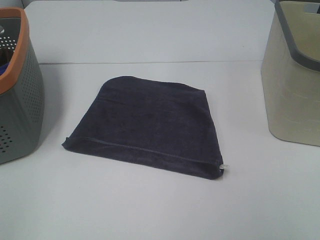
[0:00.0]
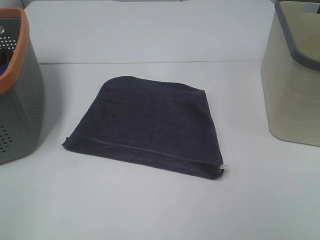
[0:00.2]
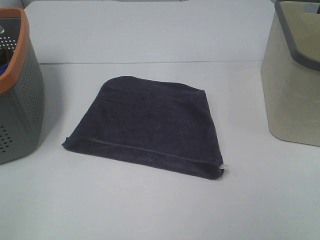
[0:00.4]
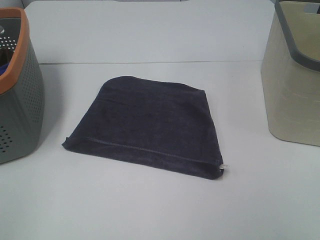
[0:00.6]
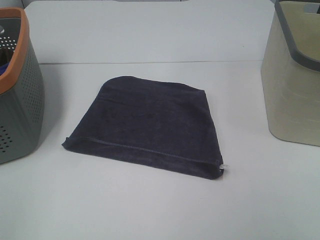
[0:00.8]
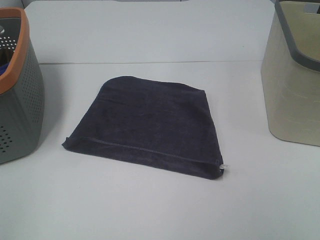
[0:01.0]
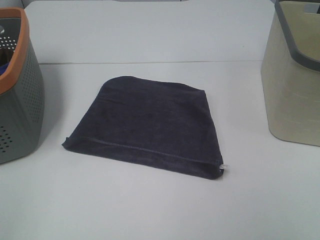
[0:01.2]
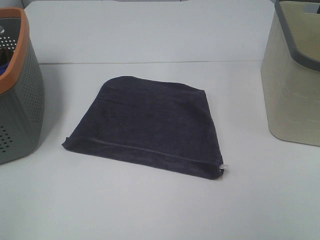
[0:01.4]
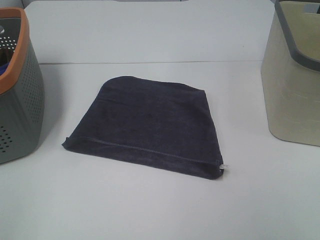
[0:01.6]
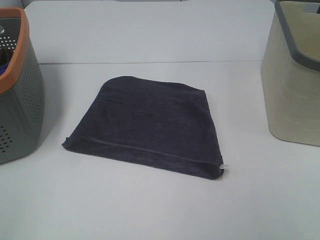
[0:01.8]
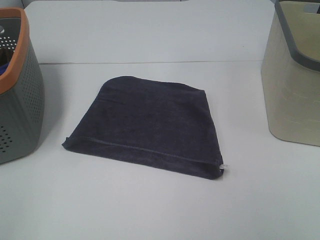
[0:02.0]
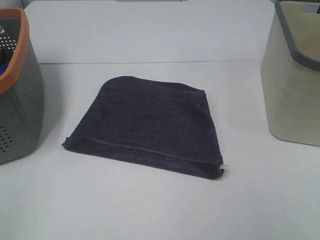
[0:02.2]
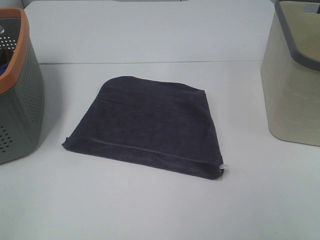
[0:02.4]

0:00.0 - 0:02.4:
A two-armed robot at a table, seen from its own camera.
Task of the whole recording: Remove the towel and place it.
0:01.2 - 0:02.4: Both grippers stay put.

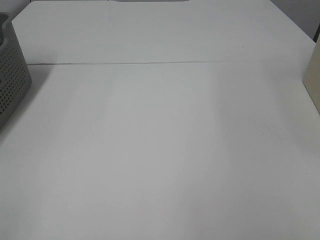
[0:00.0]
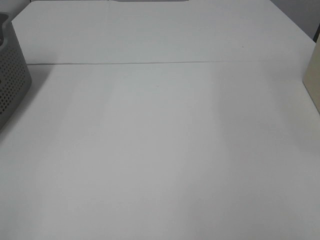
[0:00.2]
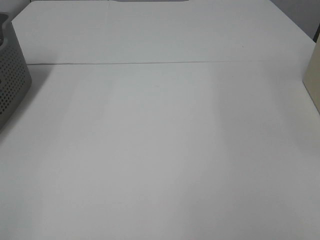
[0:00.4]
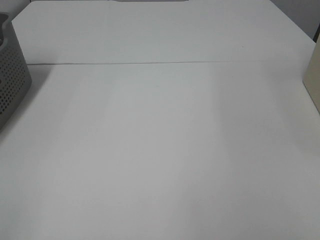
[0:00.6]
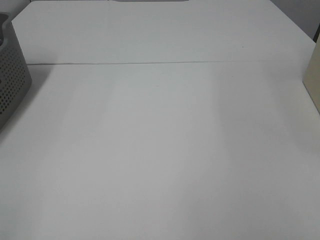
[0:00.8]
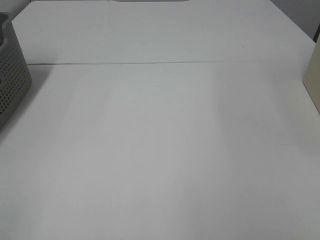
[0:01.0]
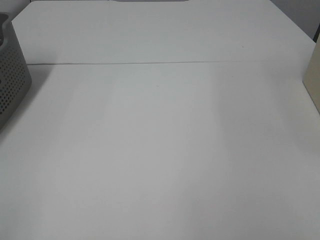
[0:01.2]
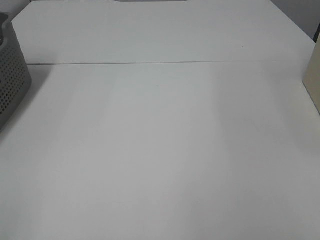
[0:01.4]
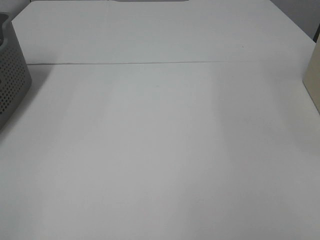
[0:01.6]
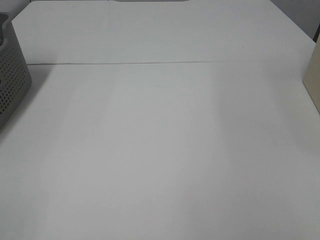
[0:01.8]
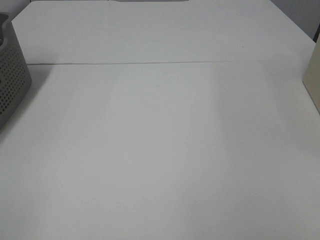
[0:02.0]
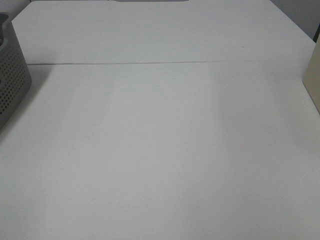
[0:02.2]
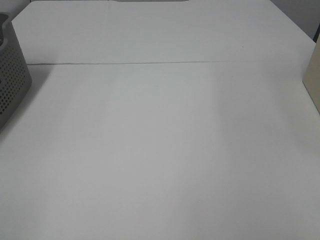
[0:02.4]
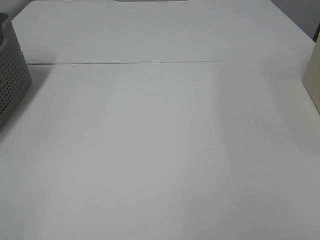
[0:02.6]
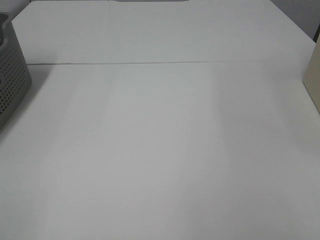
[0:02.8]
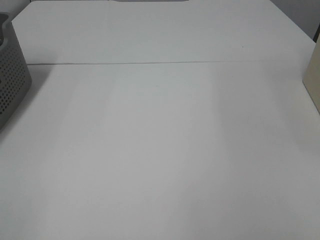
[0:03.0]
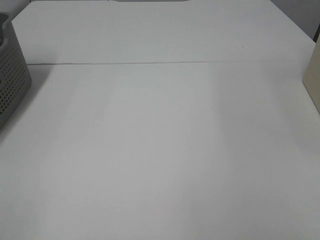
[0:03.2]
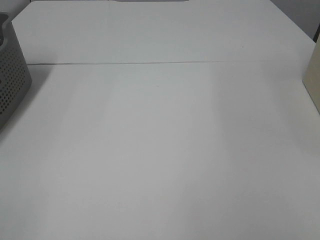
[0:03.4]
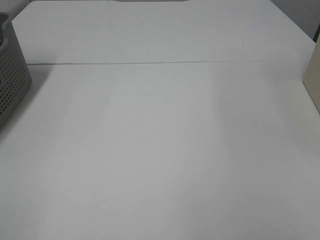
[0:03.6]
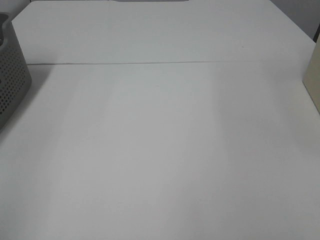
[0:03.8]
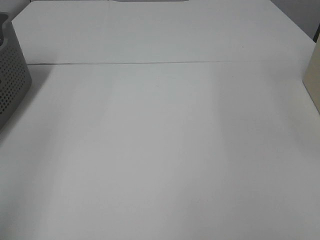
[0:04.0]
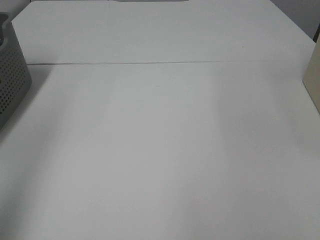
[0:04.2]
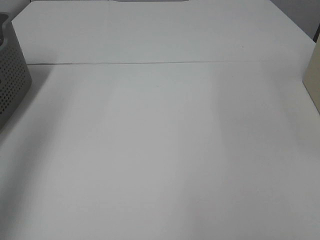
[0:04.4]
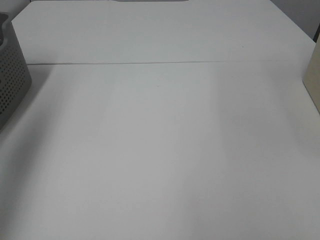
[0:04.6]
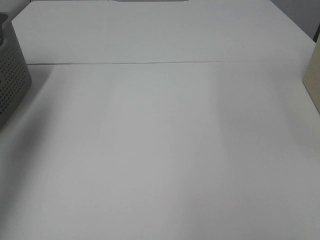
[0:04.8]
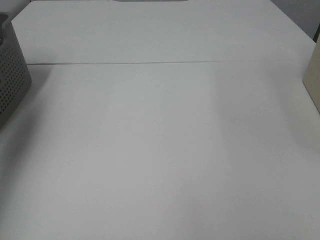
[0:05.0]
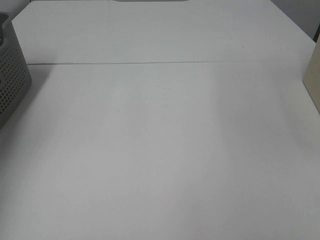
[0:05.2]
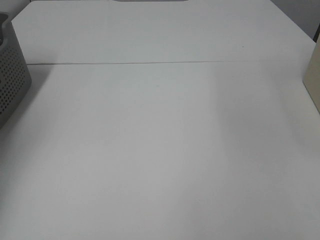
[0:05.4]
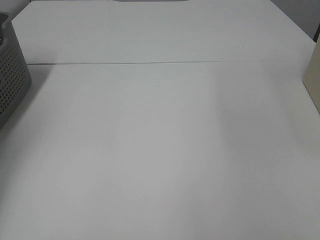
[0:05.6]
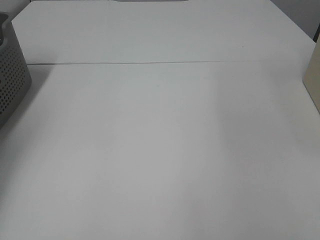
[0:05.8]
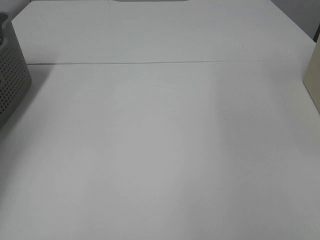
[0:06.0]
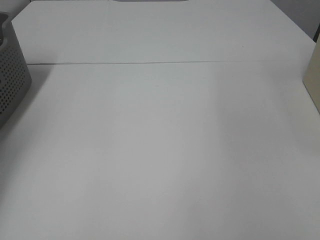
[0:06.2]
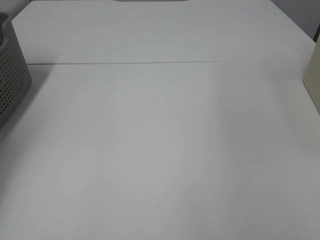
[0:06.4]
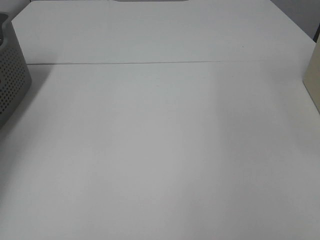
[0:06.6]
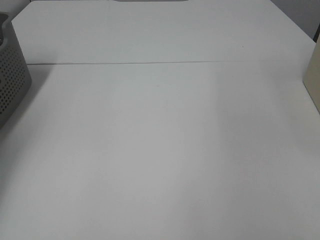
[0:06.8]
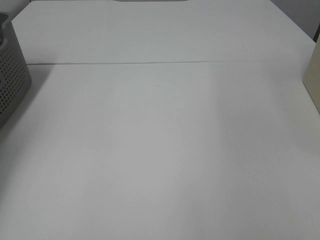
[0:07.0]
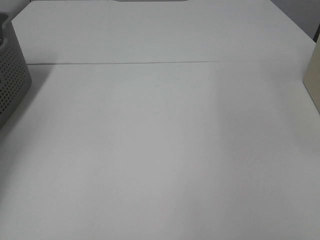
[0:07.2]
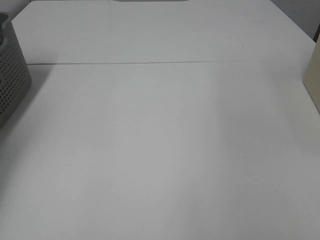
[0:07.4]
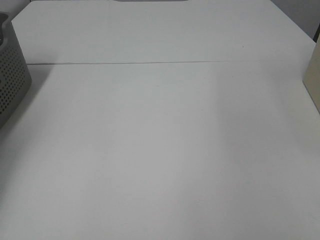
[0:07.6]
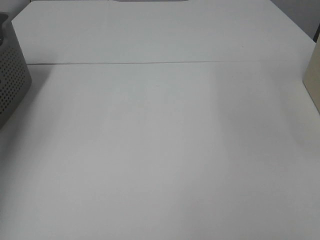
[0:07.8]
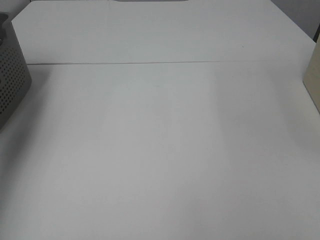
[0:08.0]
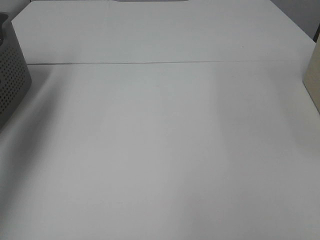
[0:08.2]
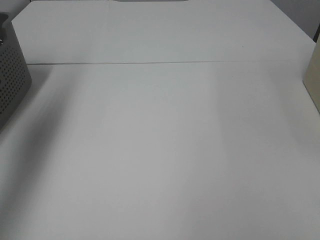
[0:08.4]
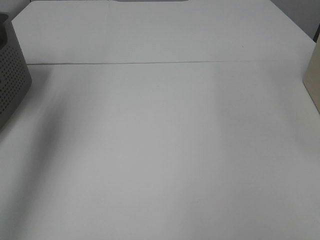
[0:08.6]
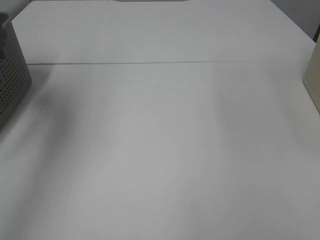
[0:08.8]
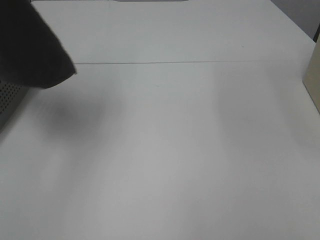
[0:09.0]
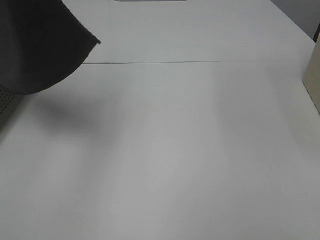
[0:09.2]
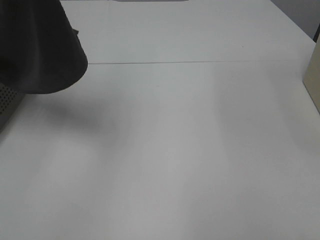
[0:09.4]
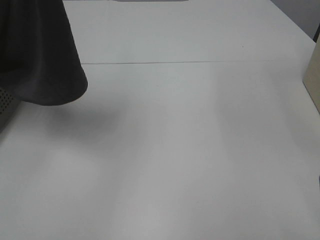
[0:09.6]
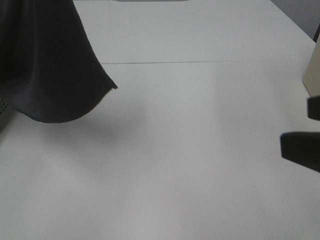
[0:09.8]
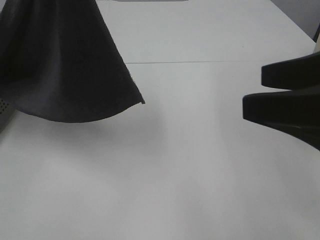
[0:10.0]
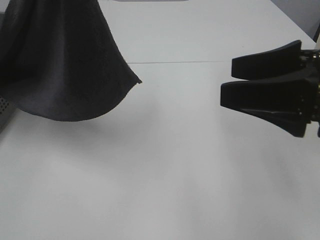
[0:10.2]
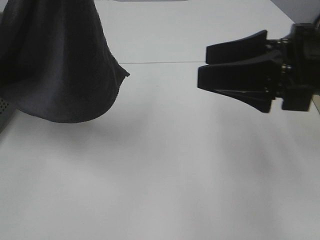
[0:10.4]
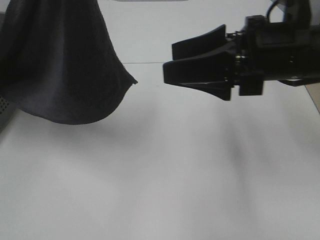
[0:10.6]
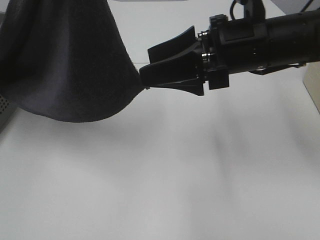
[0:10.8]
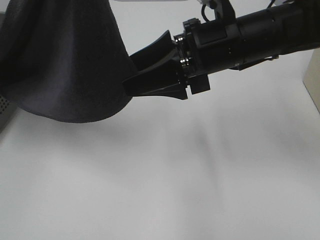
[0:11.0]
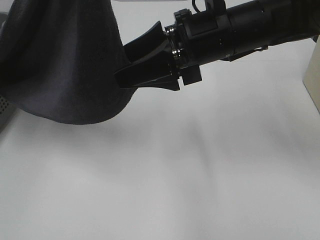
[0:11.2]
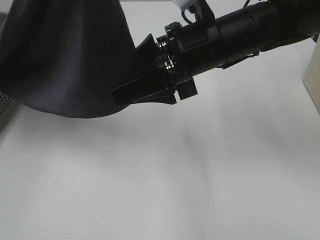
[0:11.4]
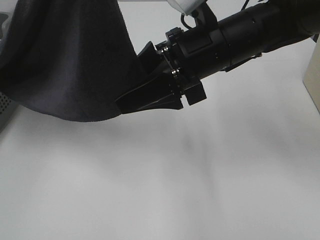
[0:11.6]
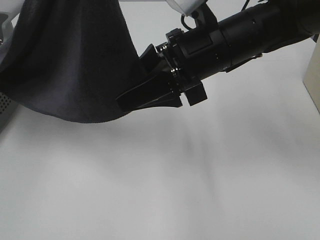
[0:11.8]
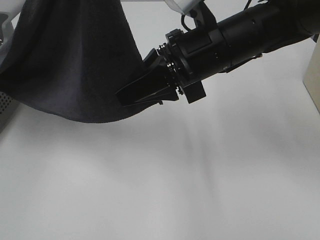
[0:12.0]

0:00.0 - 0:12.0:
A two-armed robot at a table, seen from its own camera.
Task of the whole recording: Remove the towel and place it.
0:00.0 - 0:03.0: Both grippers stay about where they are.
0:03.0 - 0:04.4: The left gripper moves forward and upward, about 25 cm.
0:04.4 - 0:06.0: The left gripper goes about 35 cm forward, downward and to the left.
0:07.6 - 0:09.0: The left gripper shifts approximately 40 cm upward, to the right and backward.
0:09.0 - 0:10.4: The left gripper travels to the right and backward by roughly 10 cm; the right gripper goes about 25 cm forward and to the left.
0:10.4 - 0:12.0: The right gripper shifts some 15 cm to the left and forward, and closes.

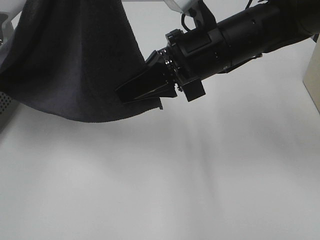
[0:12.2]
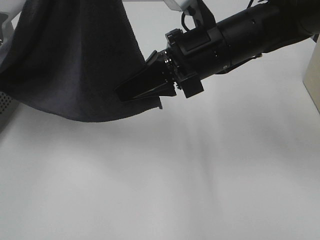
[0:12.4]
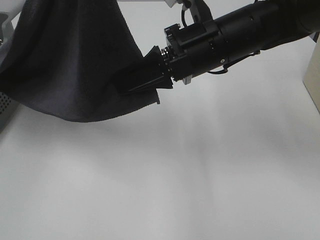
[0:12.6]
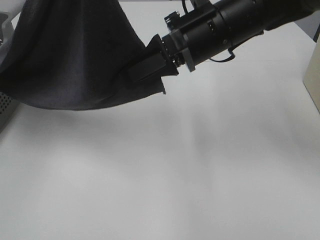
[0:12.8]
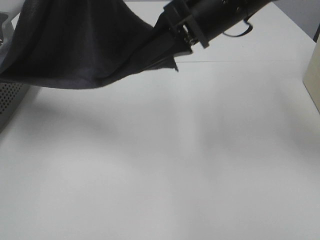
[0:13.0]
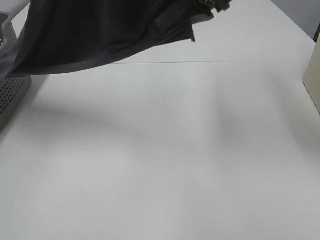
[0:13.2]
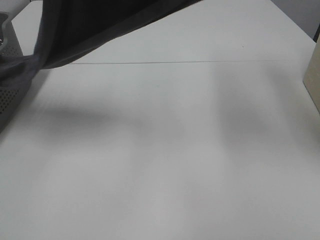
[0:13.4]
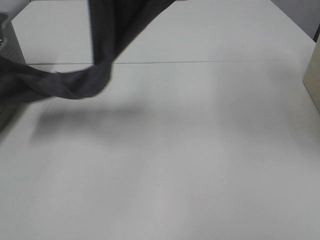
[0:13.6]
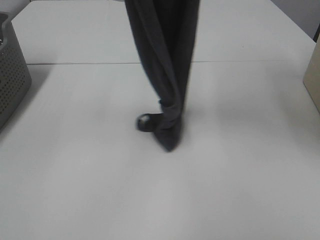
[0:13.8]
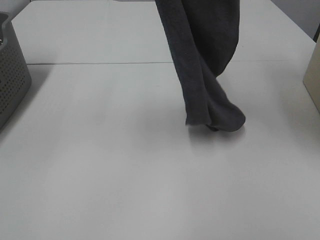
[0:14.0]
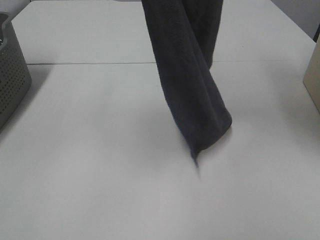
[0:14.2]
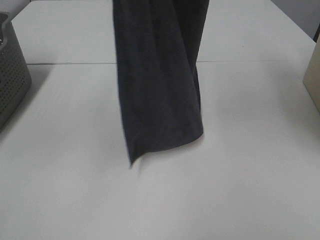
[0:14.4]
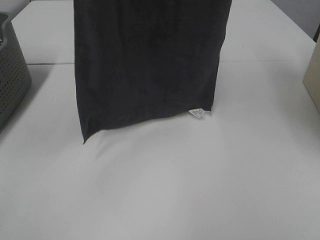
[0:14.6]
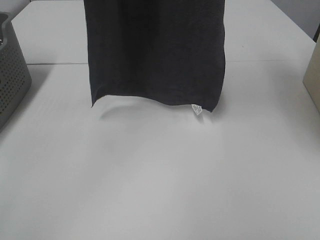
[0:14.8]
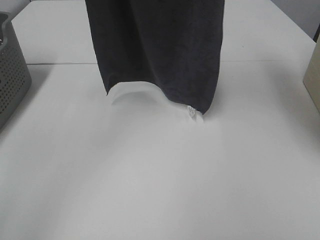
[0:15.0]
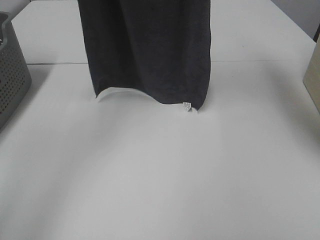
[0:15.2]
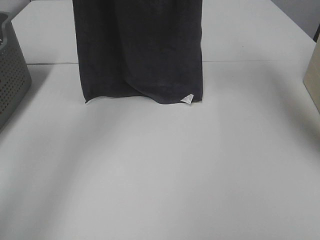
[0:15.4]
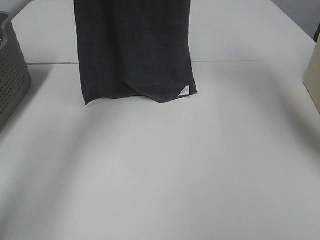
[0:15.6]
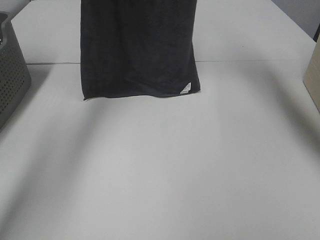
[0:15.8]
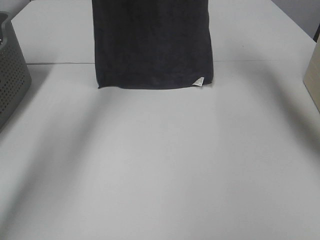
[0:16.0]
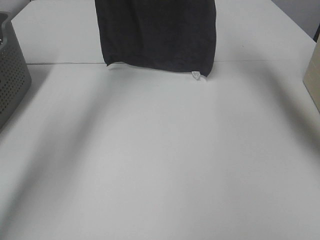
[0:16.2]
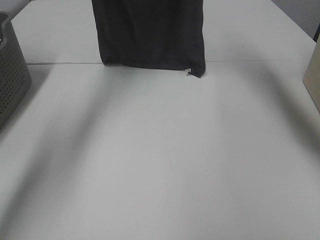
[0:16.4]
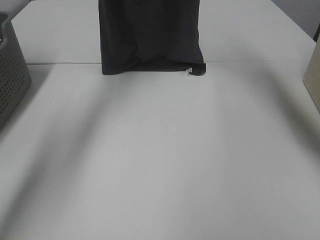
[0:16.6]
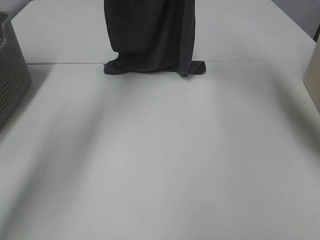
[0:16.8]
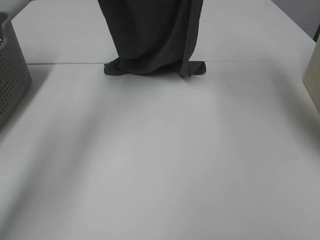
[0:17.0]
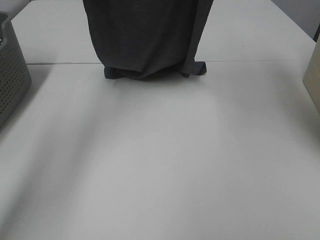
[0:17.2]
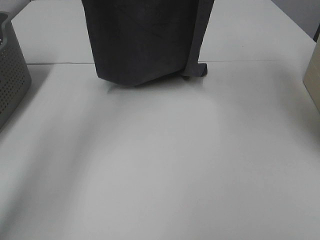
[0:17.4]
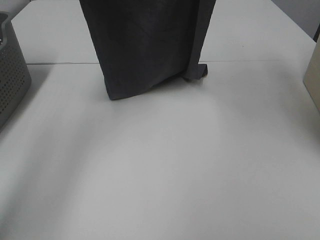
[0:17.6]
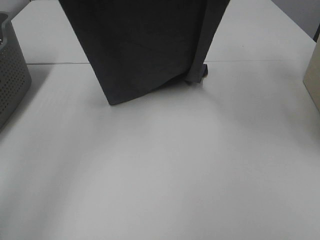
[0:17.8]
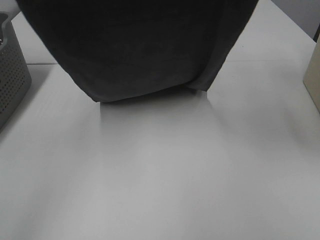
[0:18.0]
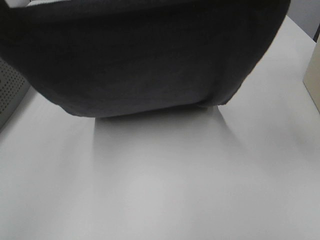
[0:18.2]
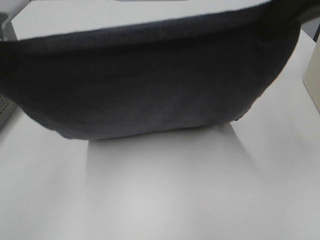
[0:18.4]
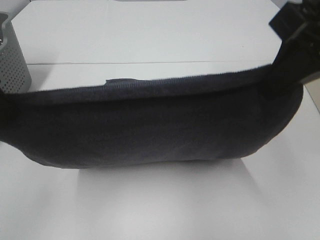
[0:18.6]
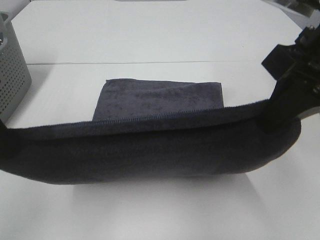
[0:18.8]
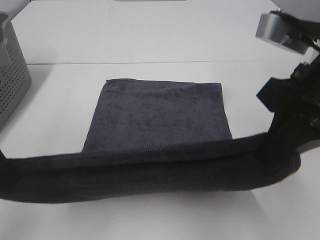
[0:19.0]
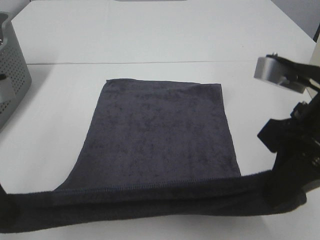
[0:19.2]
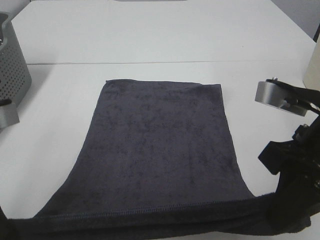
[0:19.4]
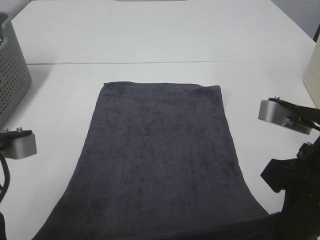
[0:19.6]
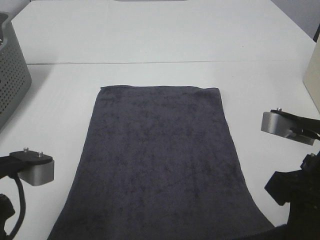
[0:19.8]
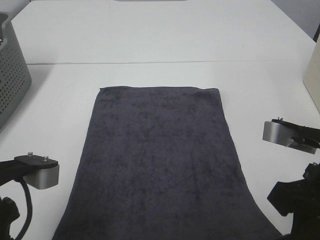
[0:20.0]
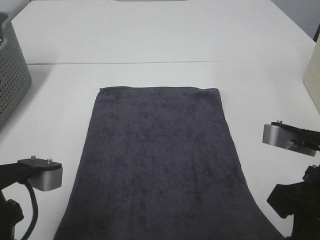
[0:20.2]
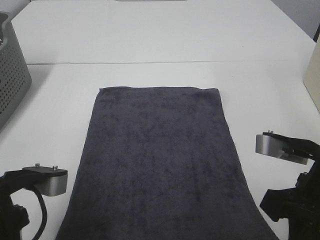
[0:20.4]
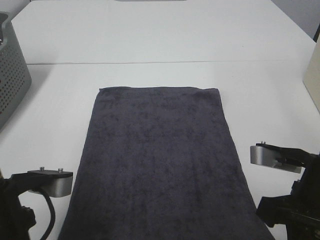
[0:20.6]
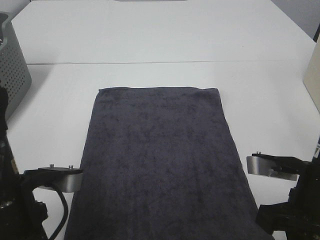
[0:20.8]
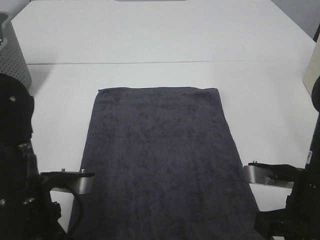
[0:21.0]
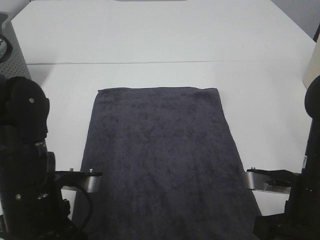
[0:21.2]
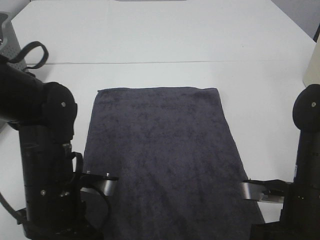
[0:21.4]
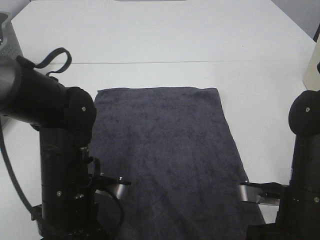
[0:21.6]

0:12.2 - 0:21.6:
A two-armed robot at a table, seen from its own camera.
Task of the whole recording: Remove the towel and place it.
Step, 0:13.4 - 0:18.4: Left hand: spread the grey towel flat on the table.
Step, 0:13.4 - 0:18.4: Right hand: spread the grey towel flat on the table.
0:12.2 - 0:13.8: The right gripper shifts some 25 cm upward. The left gripper shifts by roughly 5 cm.
0:13.8 - 0:15.4: The left gripper travels forward by about 15 cm. The right gripper travels forward by roughly 10 cm.
0:15.4 - 0:17.0: The right gripper moves some 5 cm. The left gripper heads forward and downward, covering some 10 cm.
0:17.0 - 0:18.4: Both grippers travel together backward, about 25 cm.
0:18.4 - 0:20.0: The two grippers go some 20 cm downward and backward.
0:20.0 - 0:21.6: The right gripper goes some 10 cm downward; the left gripper is displaced downward, to the right and forward by some 15 cm.
